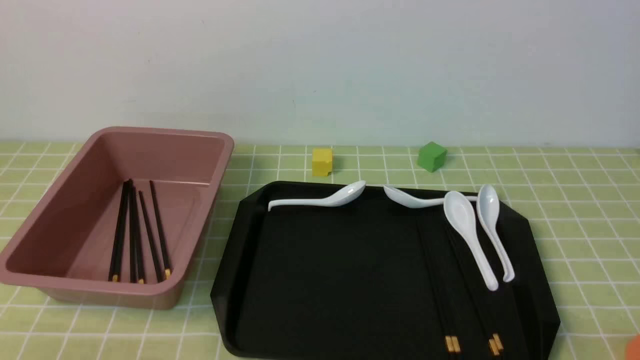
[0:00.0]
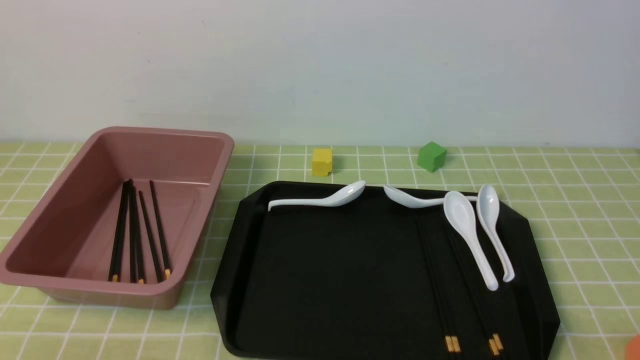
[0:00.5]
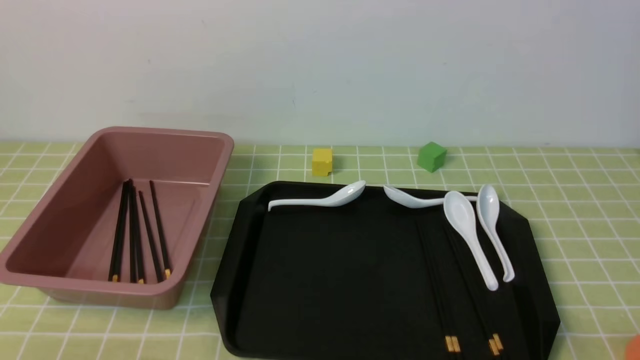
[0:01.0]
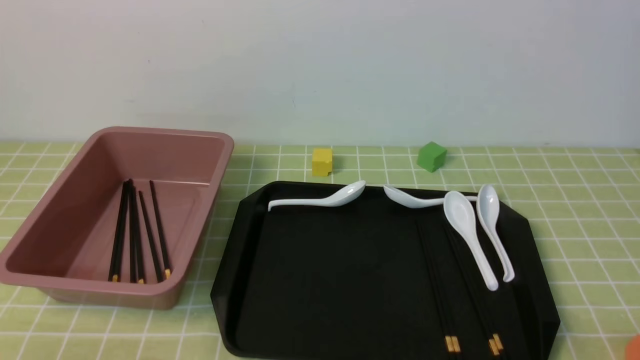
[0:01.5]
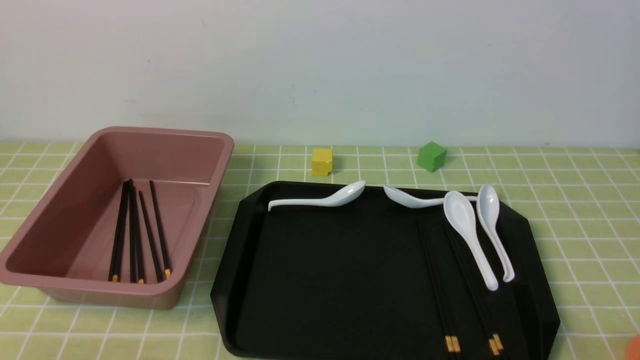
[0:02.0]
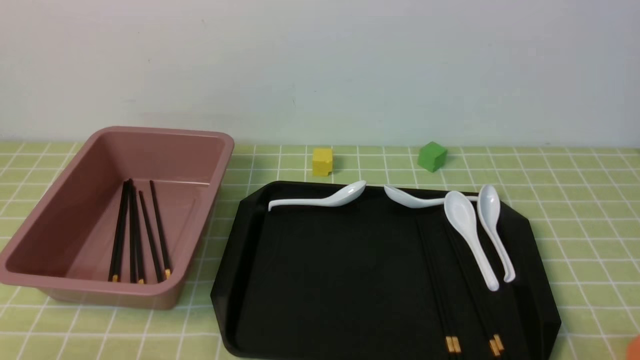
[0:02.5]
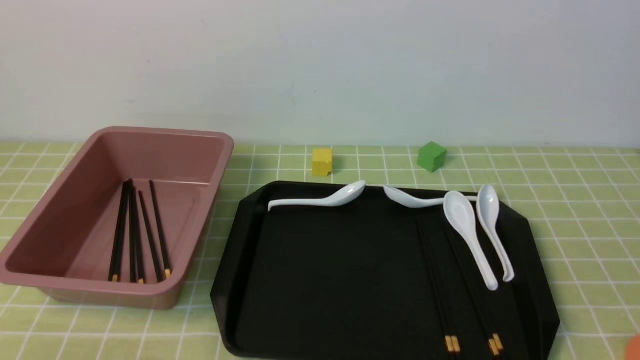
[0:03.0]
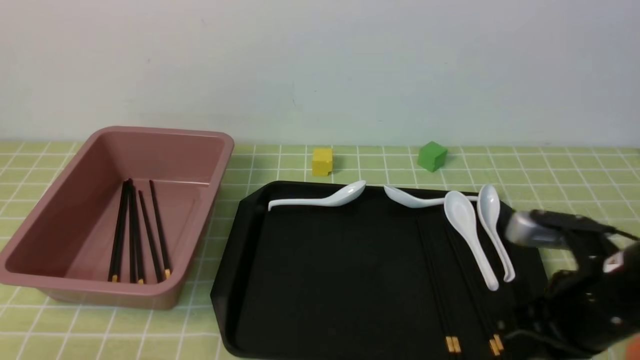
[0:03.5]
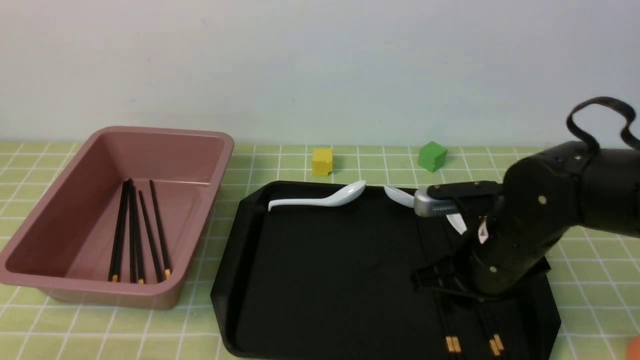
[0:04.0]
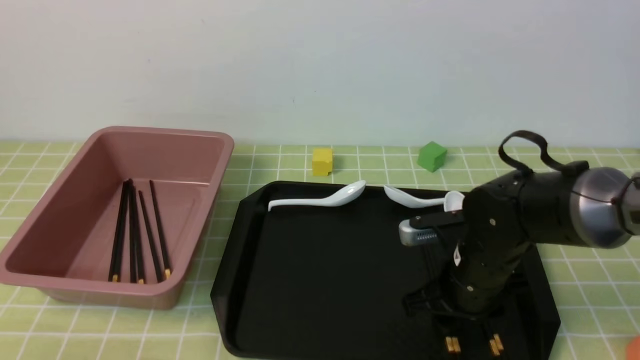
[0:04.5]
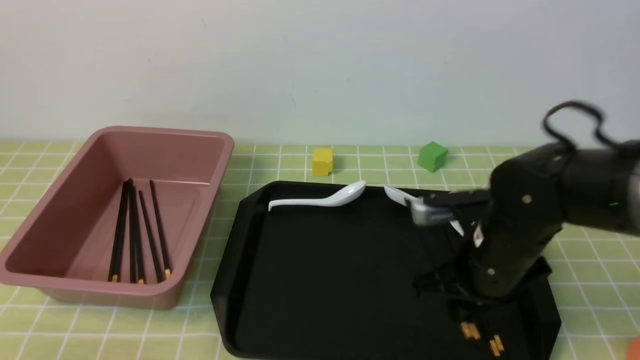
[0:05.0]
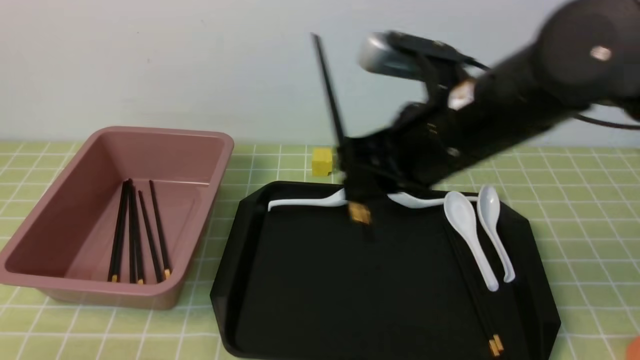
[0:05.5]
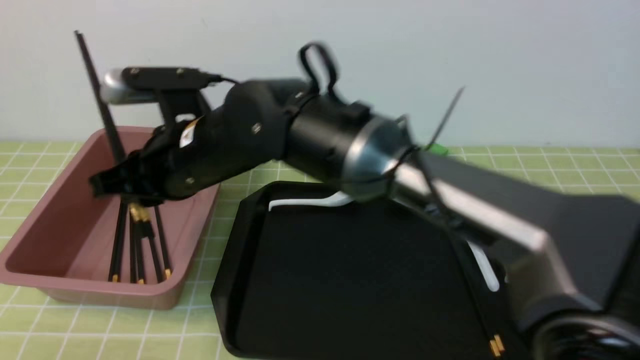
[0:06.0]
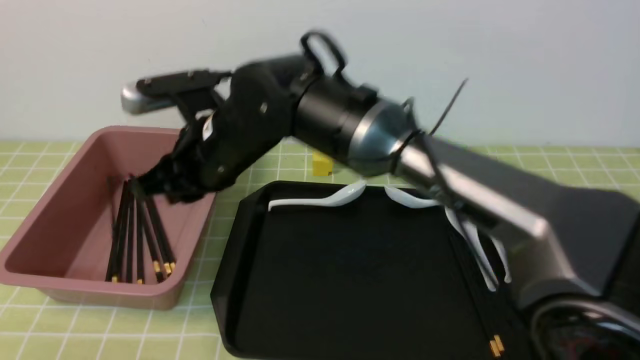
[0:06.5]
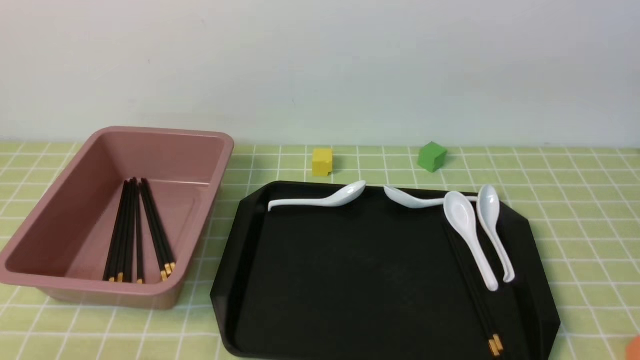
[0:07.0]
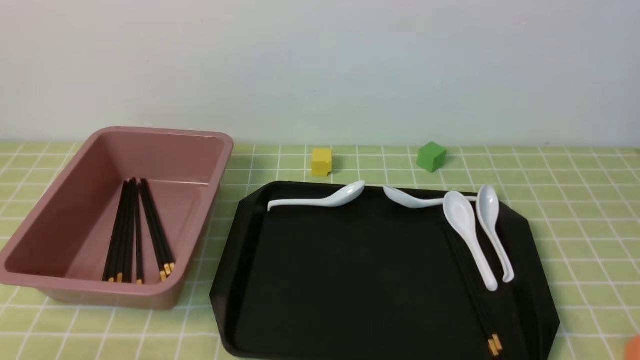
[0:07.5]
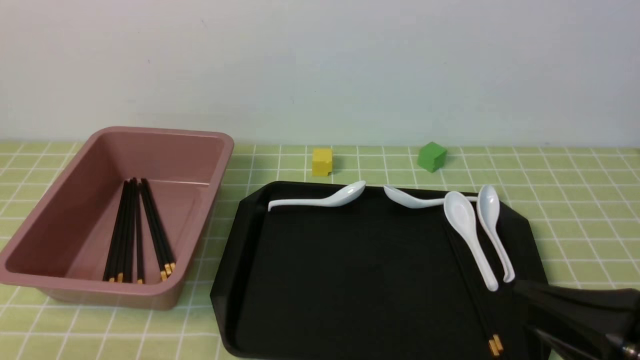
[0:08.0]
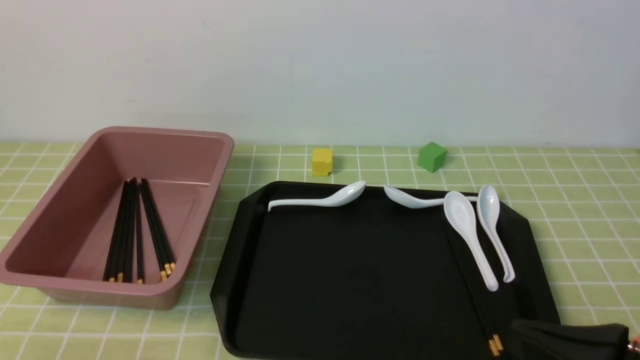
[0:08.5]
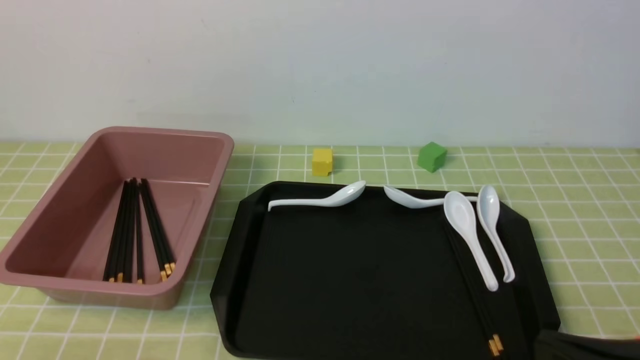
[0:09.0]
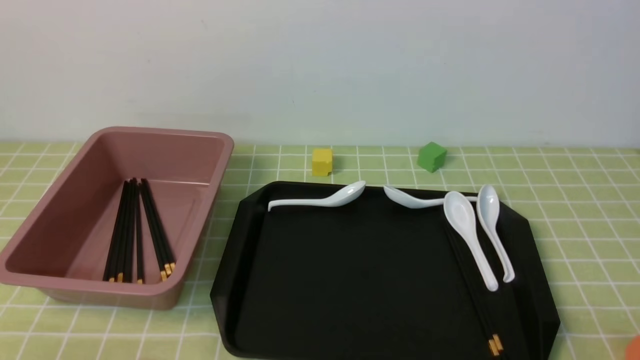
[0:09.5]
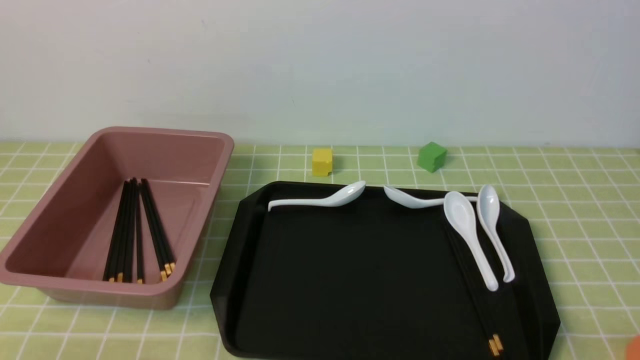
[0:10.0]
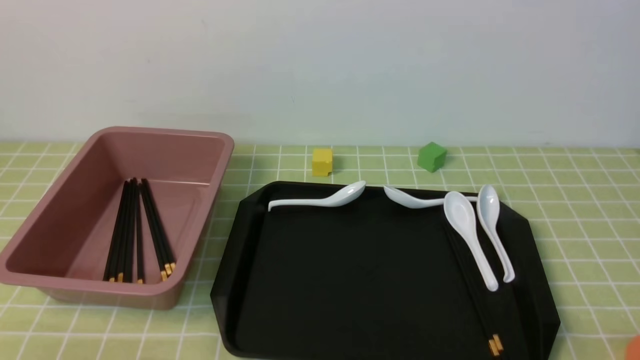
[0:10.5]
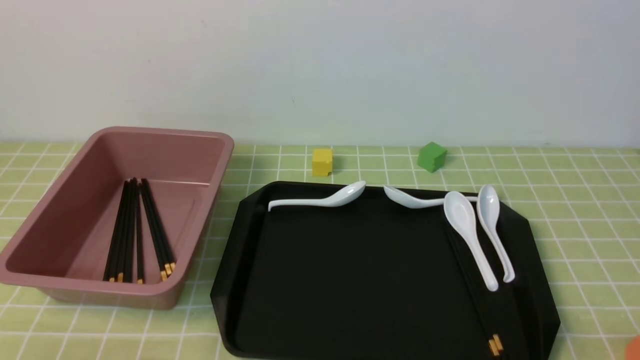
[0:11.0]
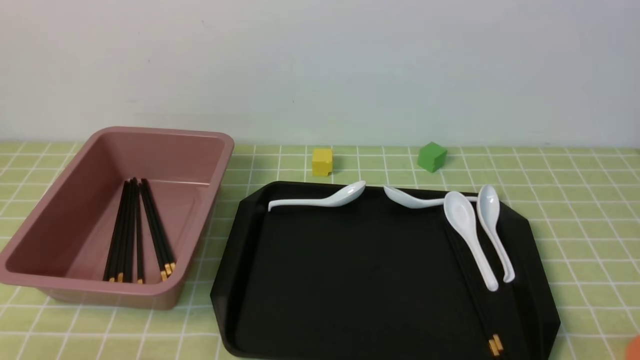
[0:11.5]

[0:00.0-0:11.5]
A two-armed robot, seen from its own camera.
Step, 0:00.0 to 0:05.0: use the right arm to grab a pair of chopsticks.
Step, 0:05.5 to 0:06.5: use the right arm to put the chopsticks into the lunch box.
0:02.0 to 0:04.0: The right gripper heads forward and to the left, covering approximately 25 cm, and closes, then reopens.
0:04.0 to 0:06.0: The right gripper goes approximately 25 cm to the left.
0:06.0 to 0:07.5: The right gripper travels to the right, backward and upward by roughly 40 cm, and closes.
